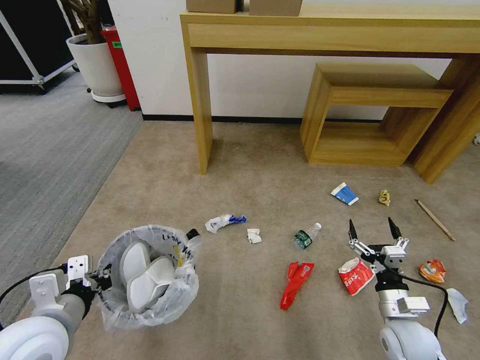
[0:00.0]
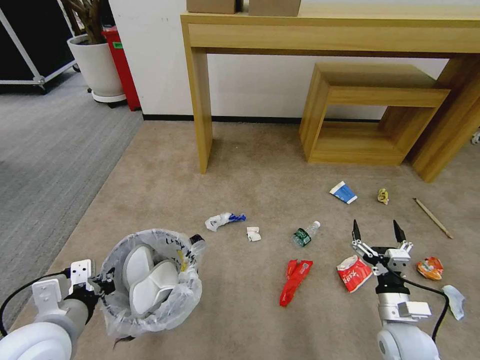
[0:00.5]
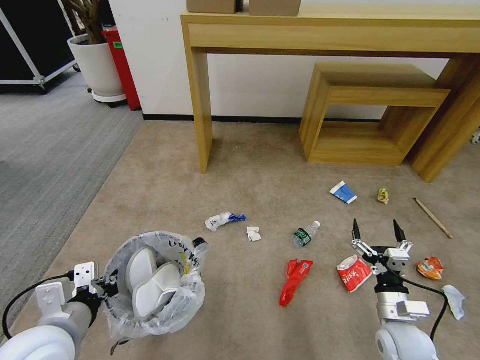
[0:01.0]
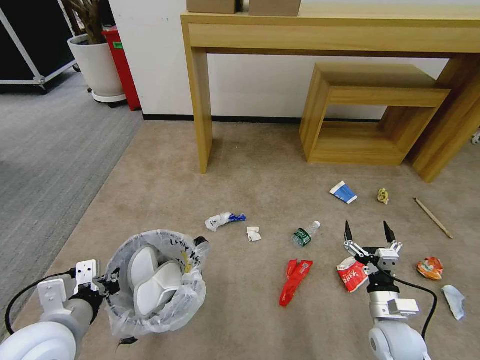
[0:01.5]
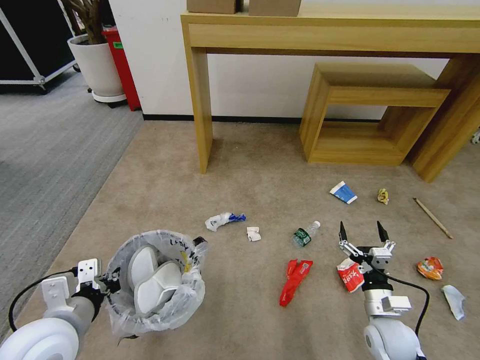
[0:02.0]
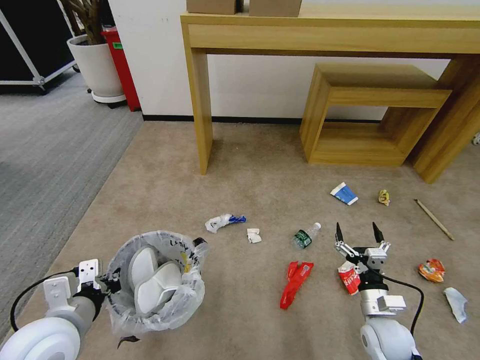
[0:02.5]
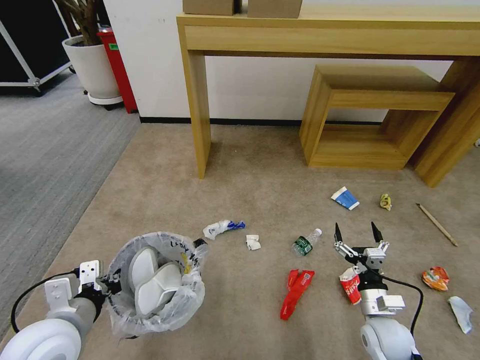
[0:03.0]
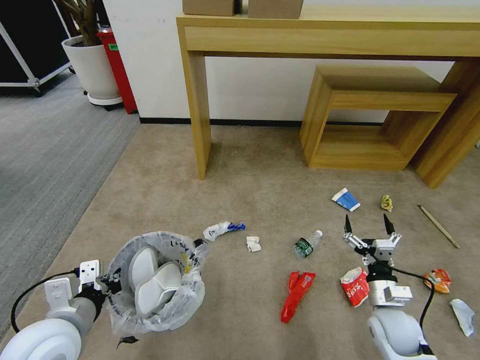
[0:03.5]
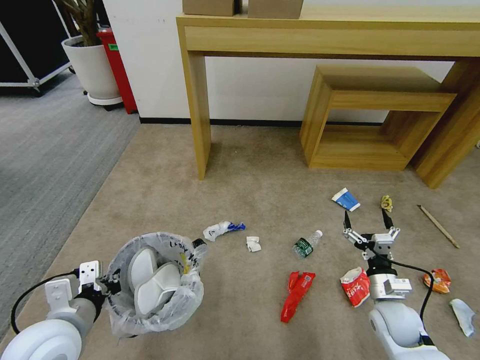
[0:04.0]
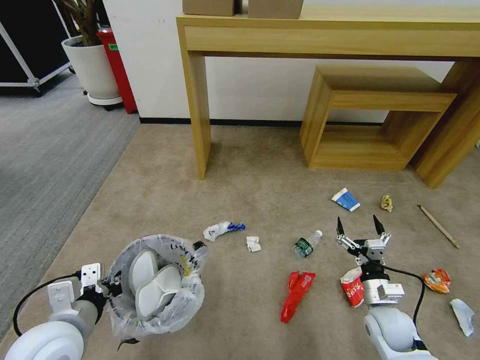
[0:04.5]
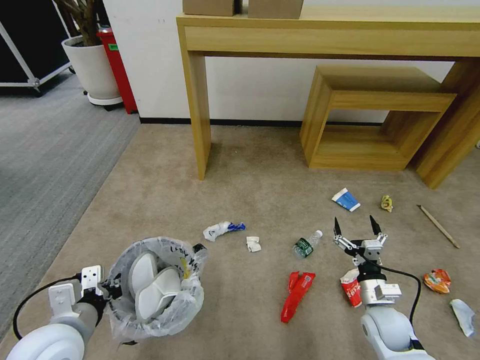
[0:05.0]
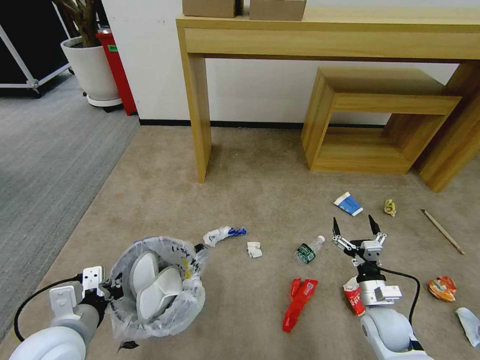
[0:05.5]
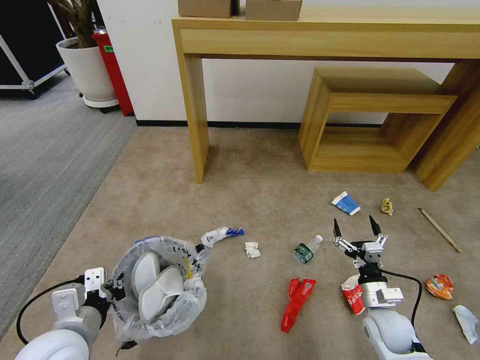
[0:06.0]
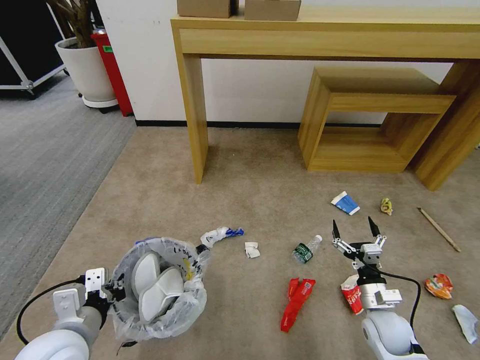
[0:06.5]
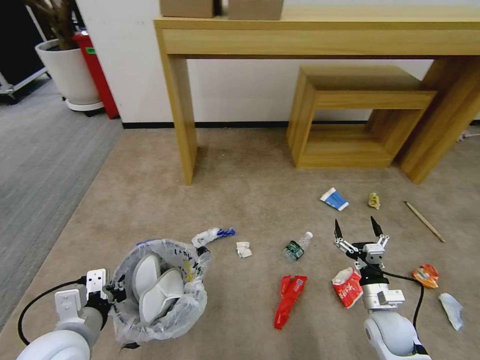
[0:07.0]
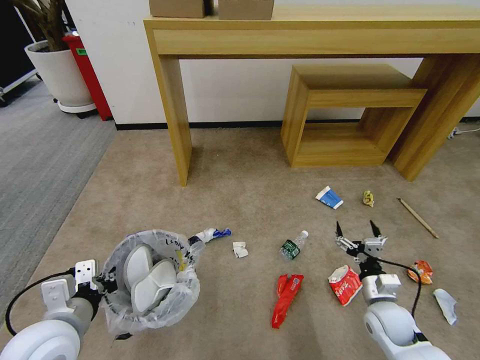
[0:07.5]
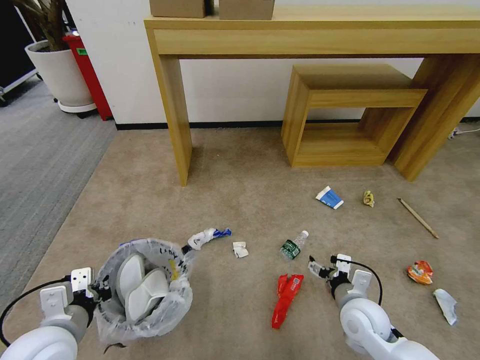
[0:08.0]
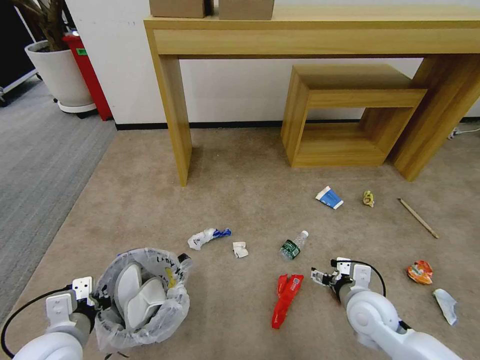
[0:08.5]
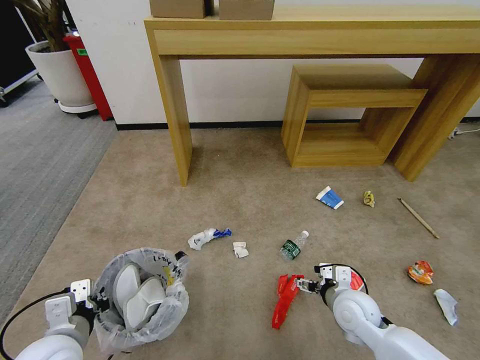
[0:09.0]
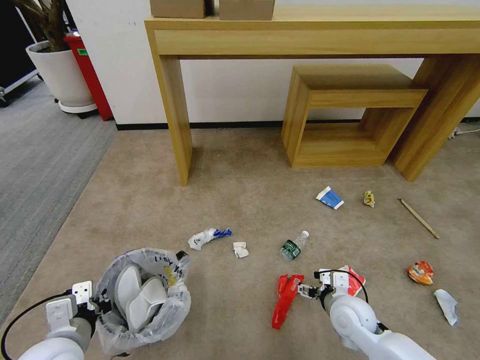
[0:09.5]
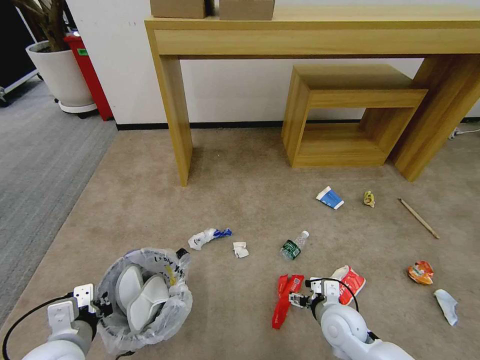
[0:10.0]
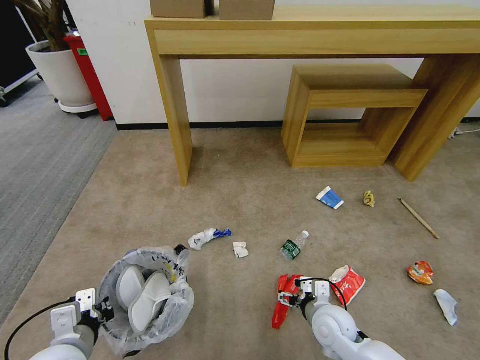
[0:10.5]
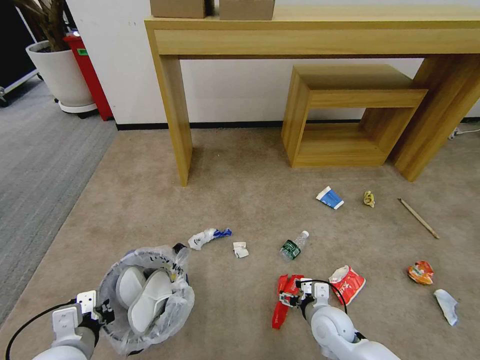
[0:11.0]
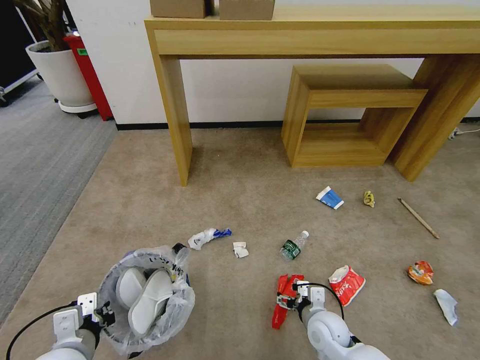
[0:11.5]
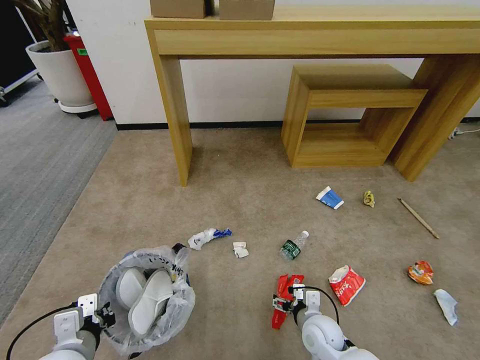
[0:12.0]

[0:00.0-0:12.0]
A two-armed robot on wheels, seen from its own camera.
Task of the whole recording: Pick up the trash bin and place the garbage on the floor into it.
0:00.0 to 0:06.0: The grippers make only small movements.
0:06.0 to 0:08.0: The right gripper moves to the left, approximately 5 cm.
0:08.0 to 0:10.0: The right gripper changes place by approximately 5 cm.
0:10.0 to 0:12.0: The right gripper goes some 5 cm downward.

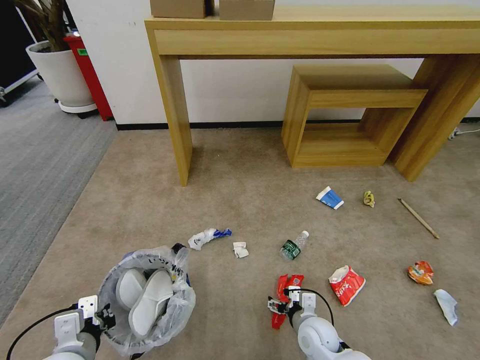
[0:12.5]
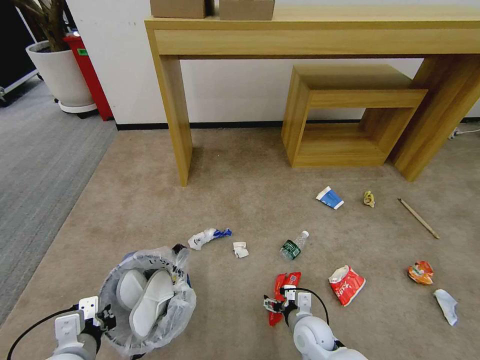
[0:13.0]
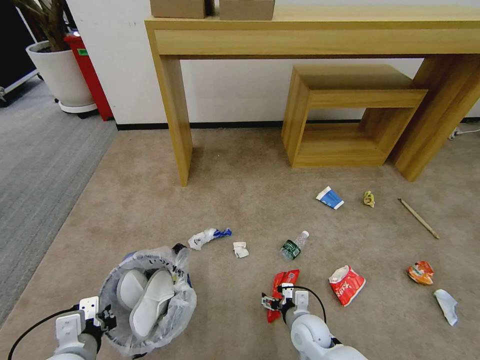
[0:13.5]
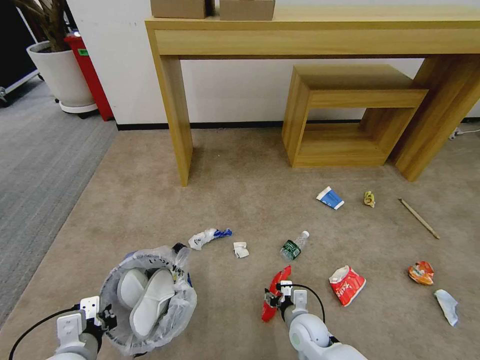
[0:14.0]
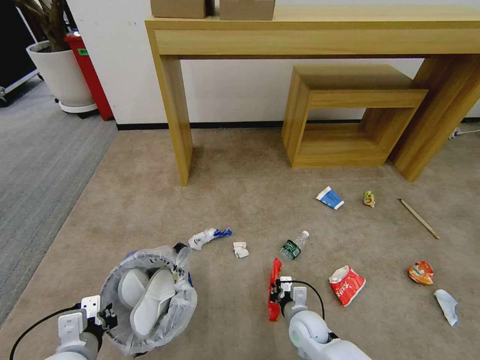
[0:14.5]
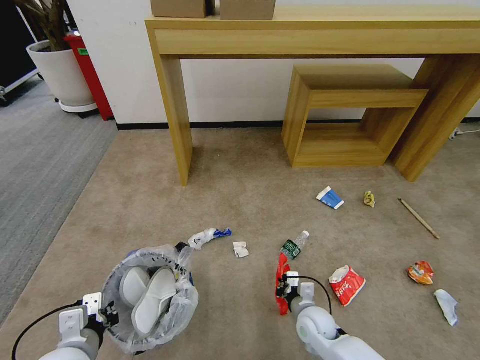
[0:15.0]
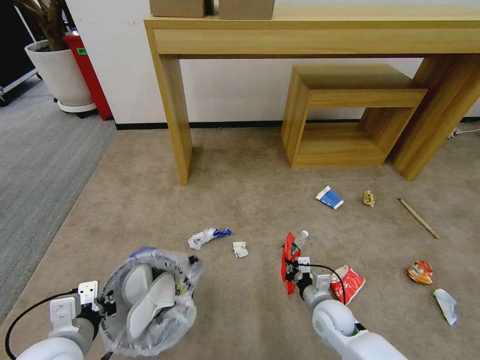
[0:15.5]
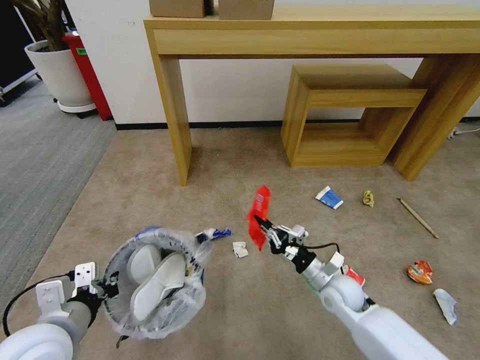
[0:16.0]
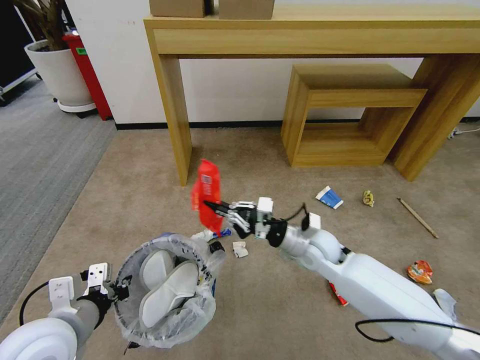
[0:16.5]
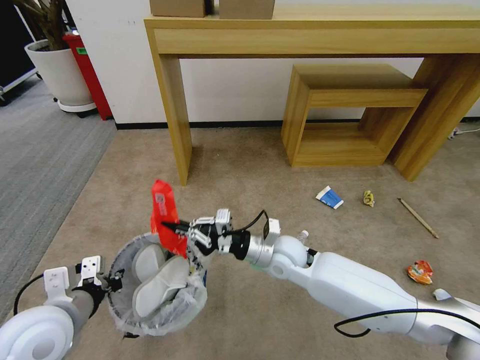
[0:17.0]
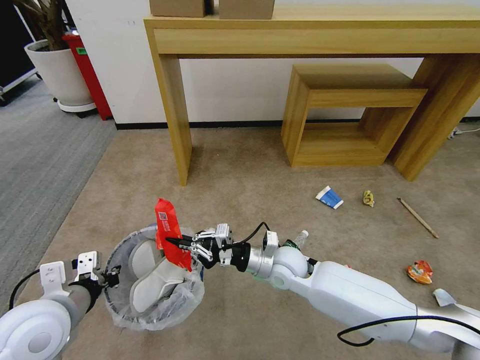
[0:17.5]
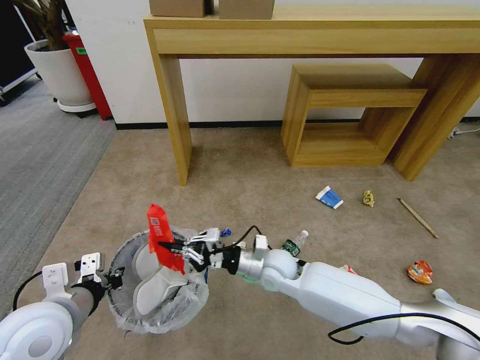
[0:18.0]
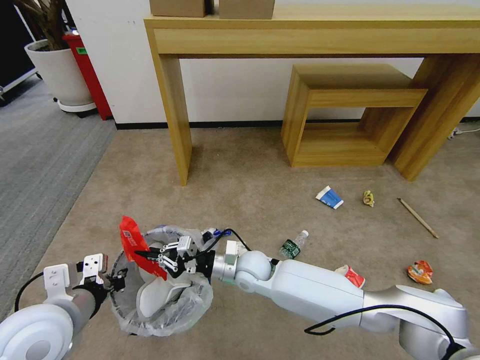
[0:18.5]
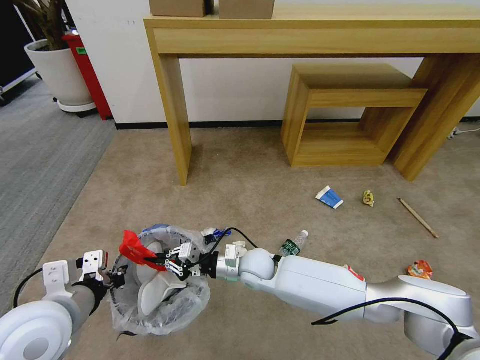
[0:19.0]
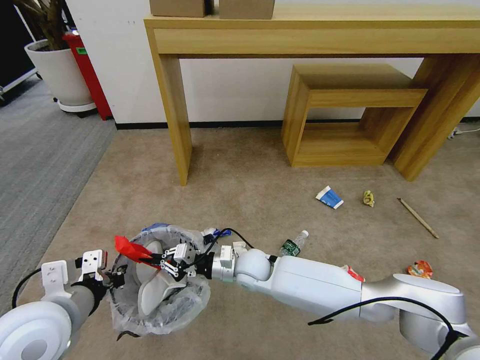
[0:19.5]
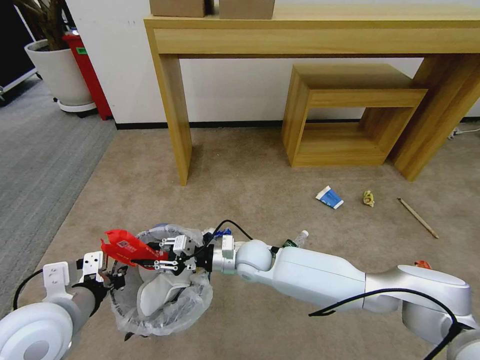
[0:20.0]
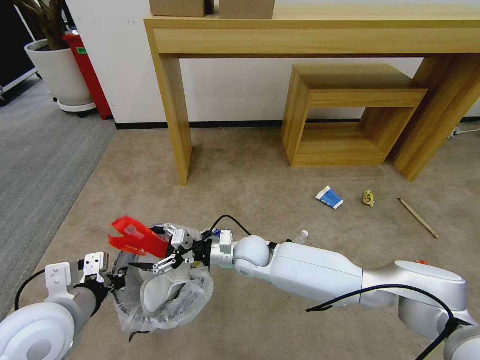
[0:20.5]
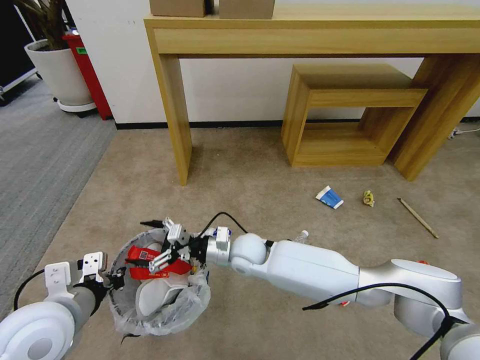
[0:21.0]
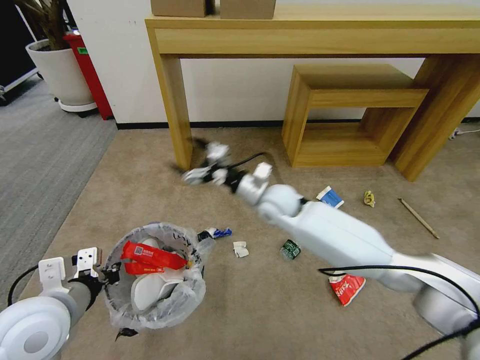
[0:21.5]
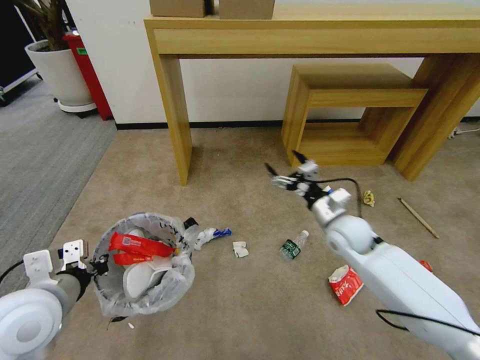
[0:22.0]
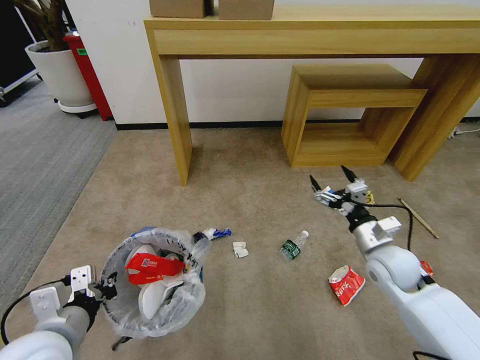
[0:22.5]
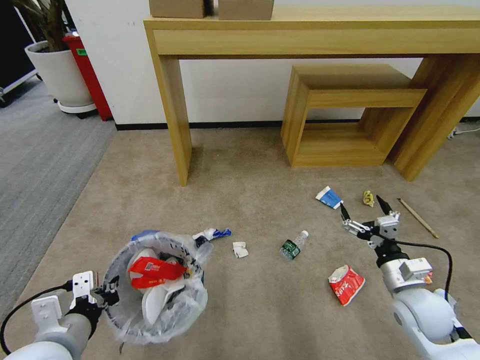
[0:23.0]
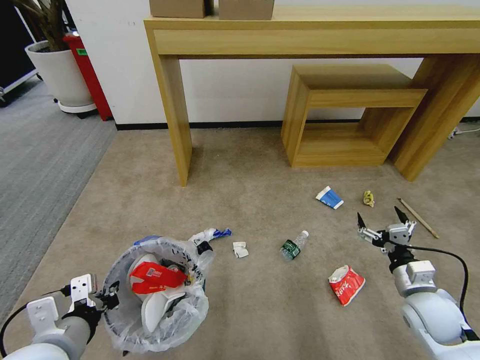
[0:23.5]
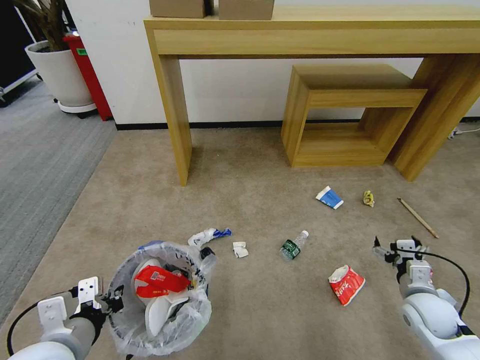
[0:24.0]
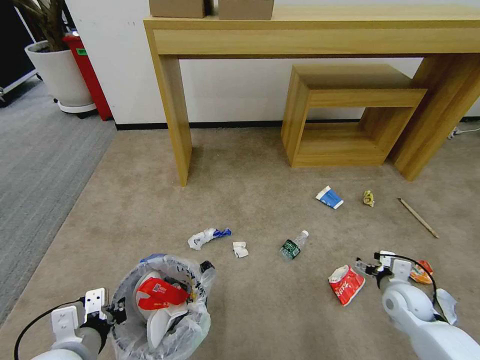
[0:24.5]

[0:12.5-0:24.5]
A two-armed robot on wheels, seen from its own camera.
Task of the whole recording: Pick up the trash bin and place the garbage on the floor into it.
0:12.5 to 0:14.5: The right gripper closes up.
0:14.5 to 0:16.5: The right gripper moves upward and forward, roughly 20 cm. The left gripper is displaced upward by about 10 cm.
0:16.5 to 0:18.5: The right gripper travels to the left by roughly 20 cm.
0:18.5 to 0:20.5: The right gripper opens its fingers.
0:20.5 to 0:22.5: The right gripper heads to the right, covering approximately 30 cm.
0:22.5 to 0:24.5: The right gripper moves downward and to the right, roughly 15 cm.

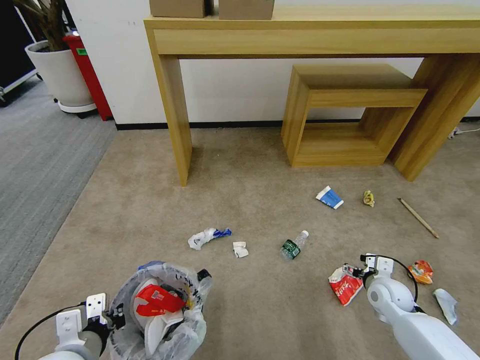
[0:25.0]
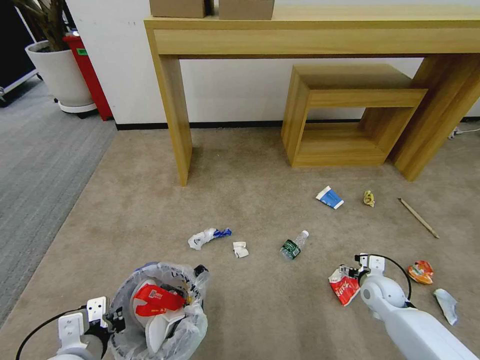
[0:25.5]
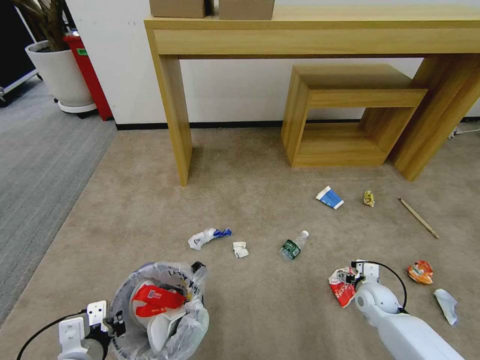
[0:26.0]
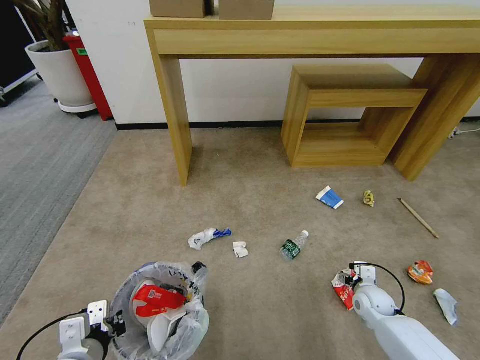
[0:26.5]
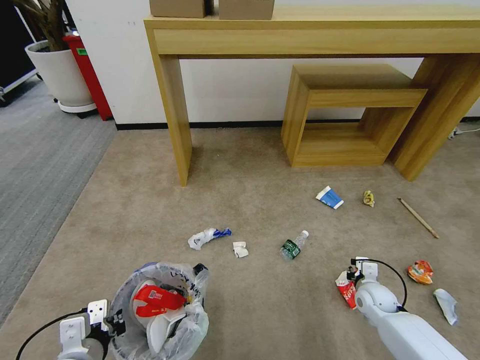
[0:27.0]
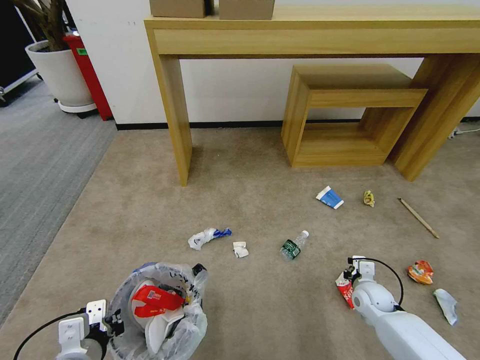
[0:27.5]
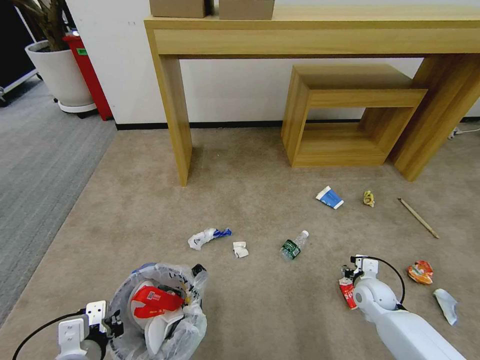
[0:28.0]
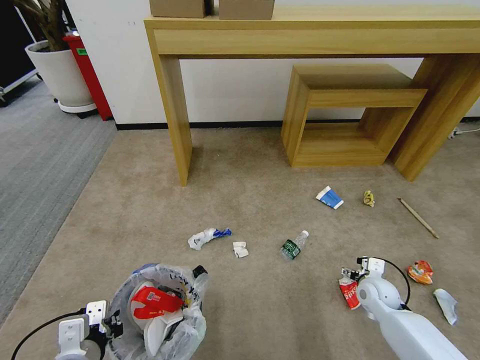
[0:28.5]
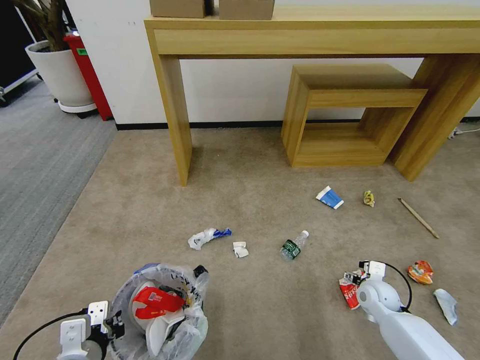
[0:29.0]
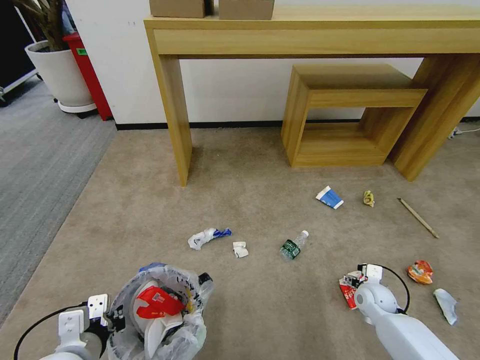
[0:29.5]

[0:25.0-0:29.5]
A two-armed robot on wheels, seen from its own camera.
Task of the whole recording: Pick up the trash bin and place the garbage on the floor into it.
0:25.0 to 0:27.0: The right gripper is displaced downward by about 5 cm, and closes.
0:27.0 to 0:29.5: The right gripper opens.
